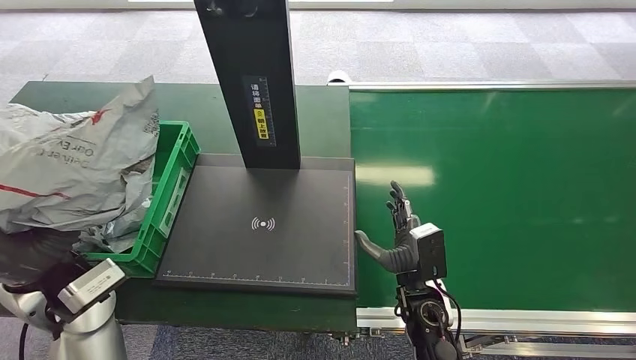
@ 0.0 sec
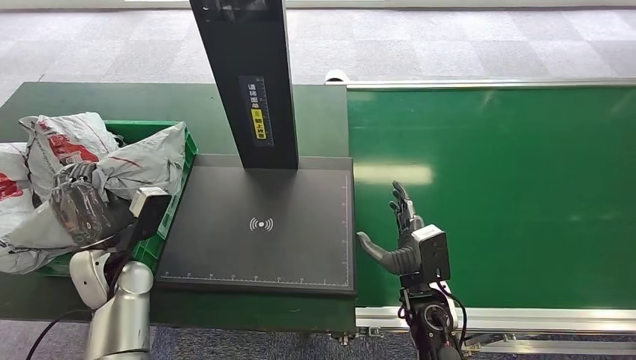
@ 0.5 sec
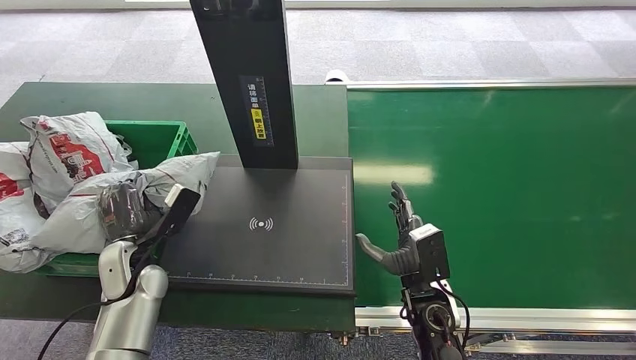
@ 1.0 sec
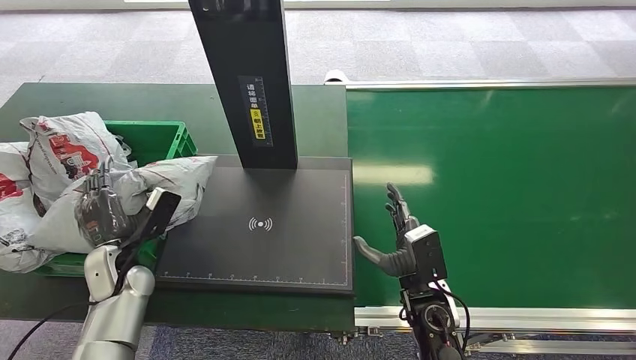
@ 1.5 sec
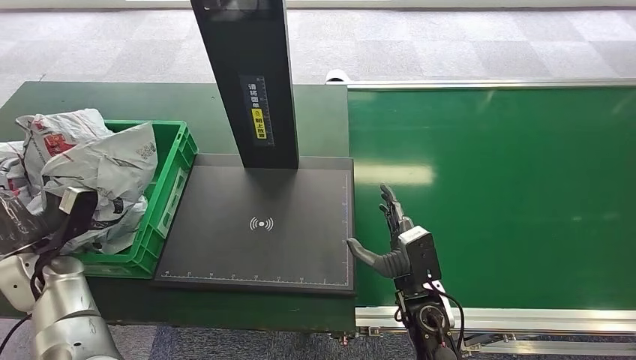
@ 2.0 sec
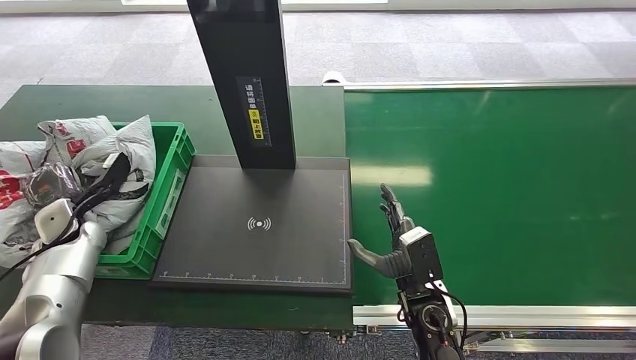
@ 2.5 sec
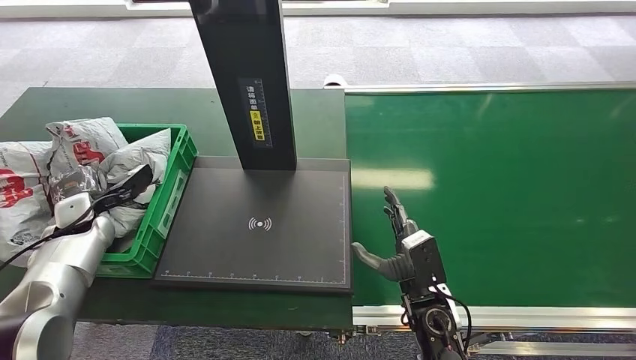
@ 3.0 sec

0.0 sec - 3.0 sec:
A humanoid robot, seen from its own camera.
Step, 0.0 sec - 3.0 sec: Place the package into the parcel locker.
